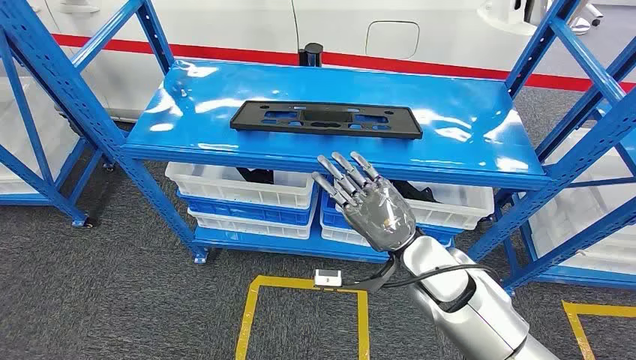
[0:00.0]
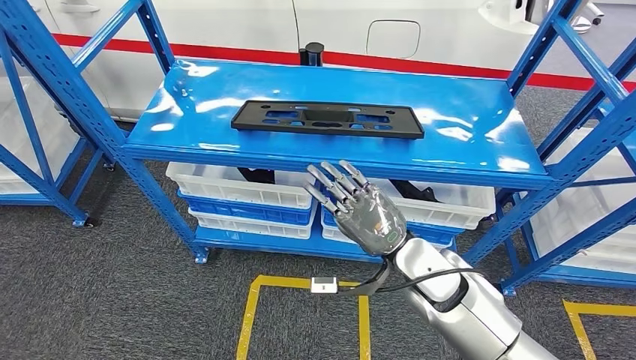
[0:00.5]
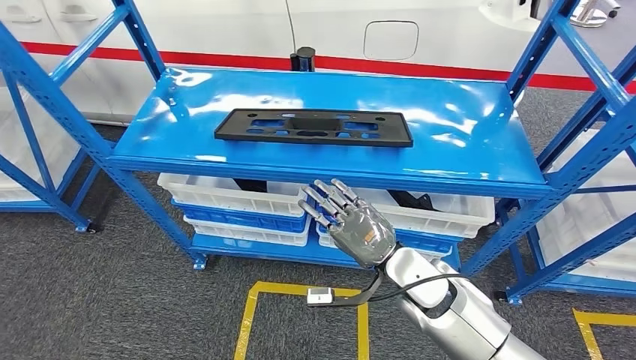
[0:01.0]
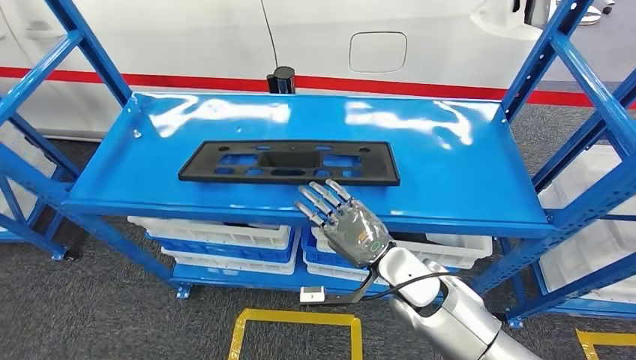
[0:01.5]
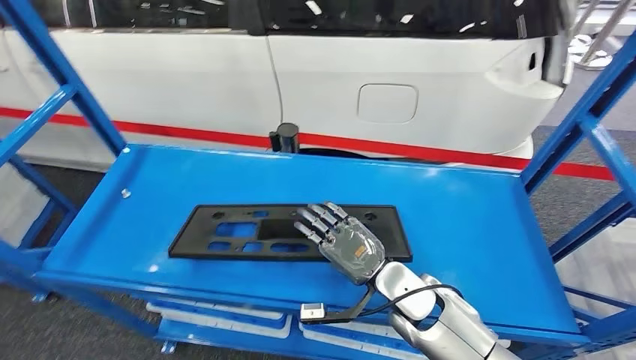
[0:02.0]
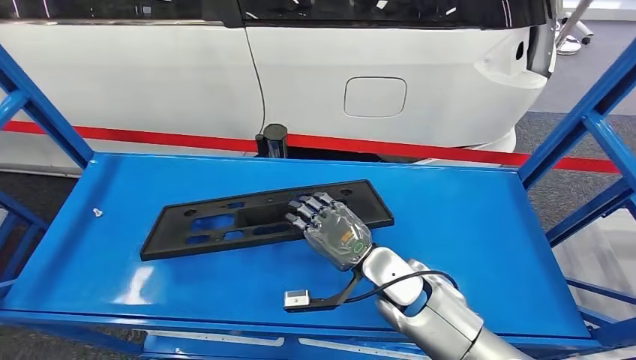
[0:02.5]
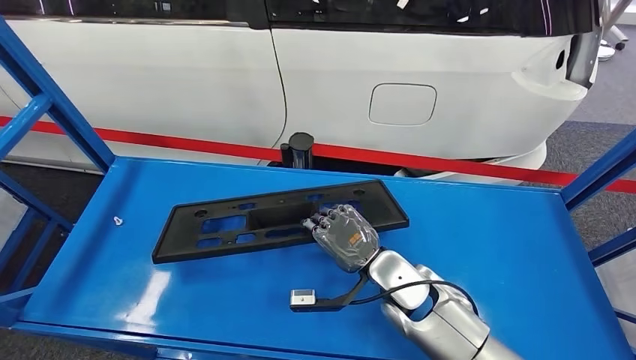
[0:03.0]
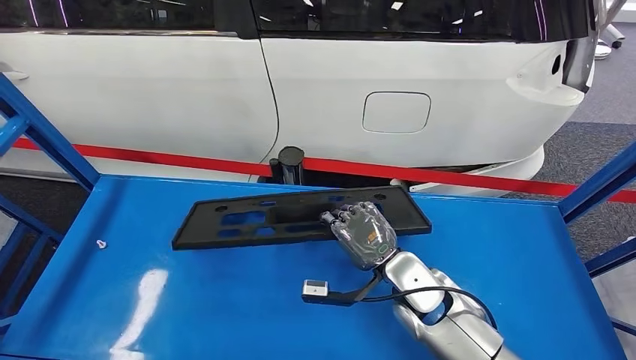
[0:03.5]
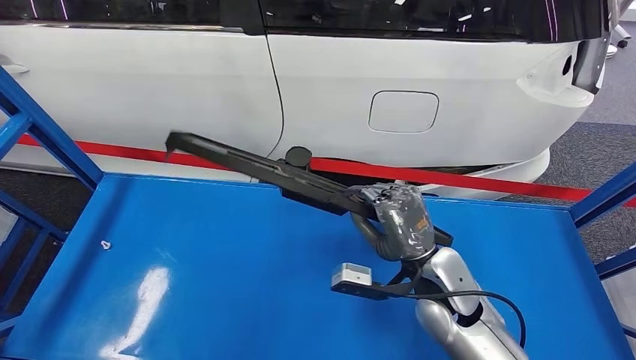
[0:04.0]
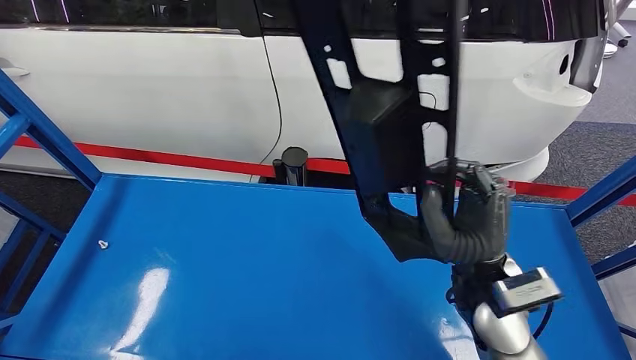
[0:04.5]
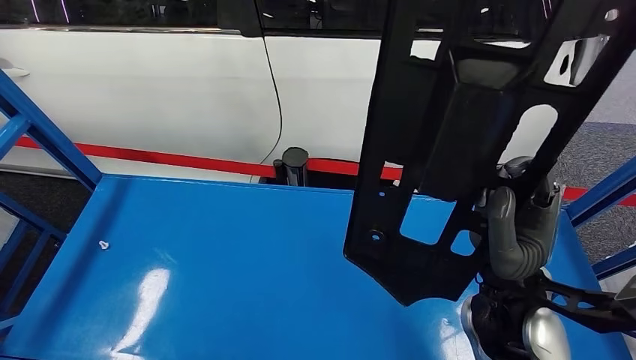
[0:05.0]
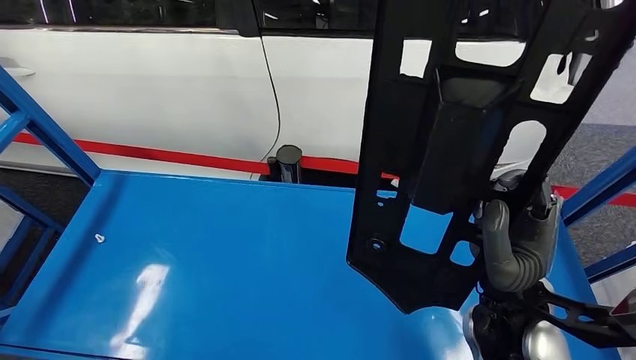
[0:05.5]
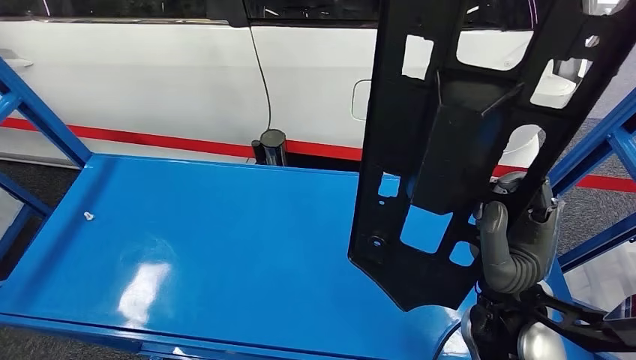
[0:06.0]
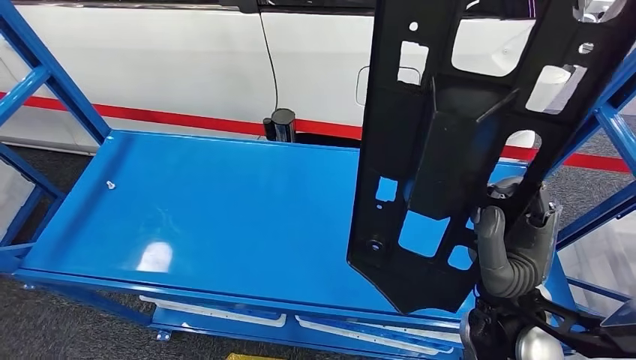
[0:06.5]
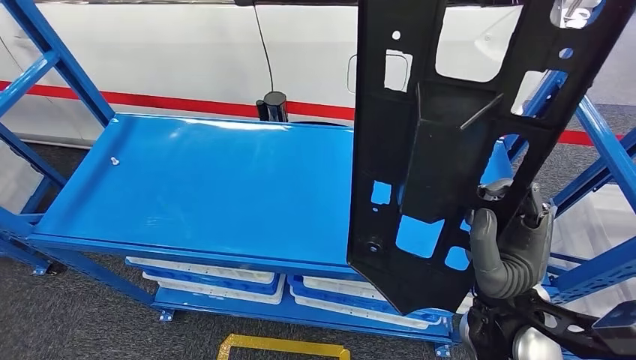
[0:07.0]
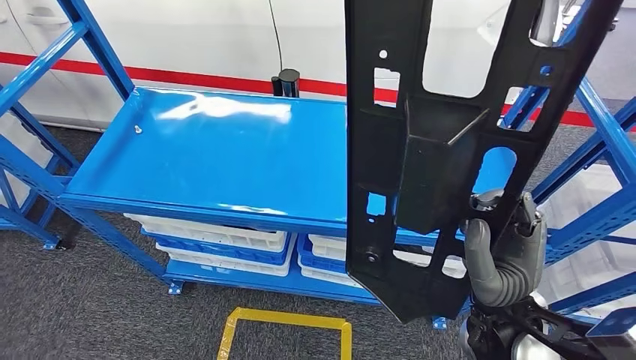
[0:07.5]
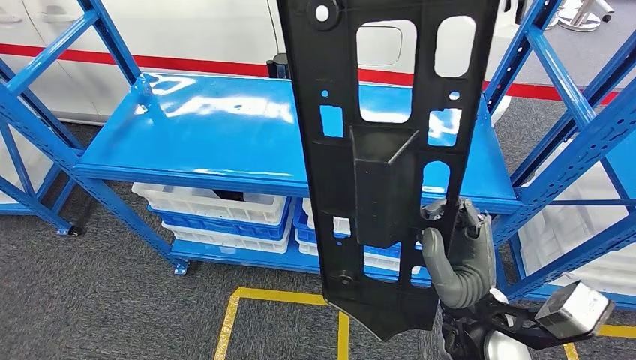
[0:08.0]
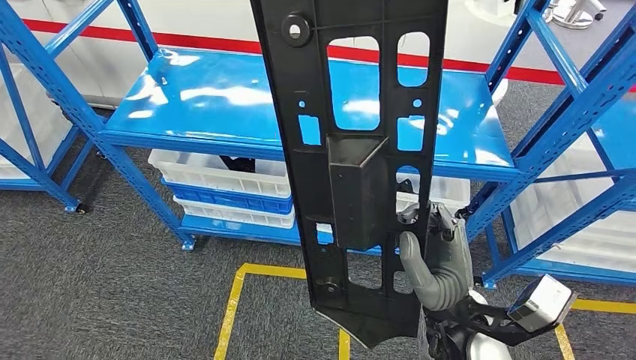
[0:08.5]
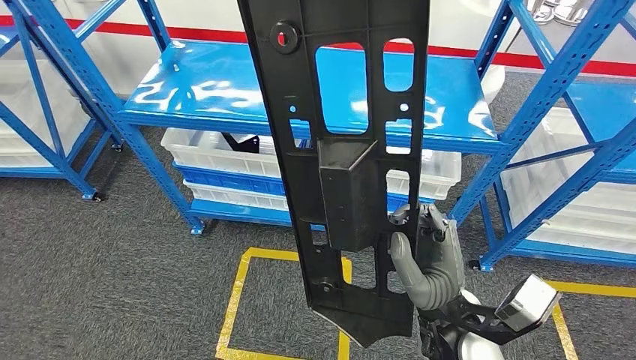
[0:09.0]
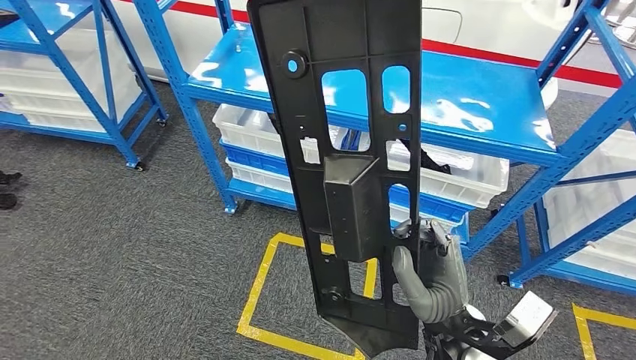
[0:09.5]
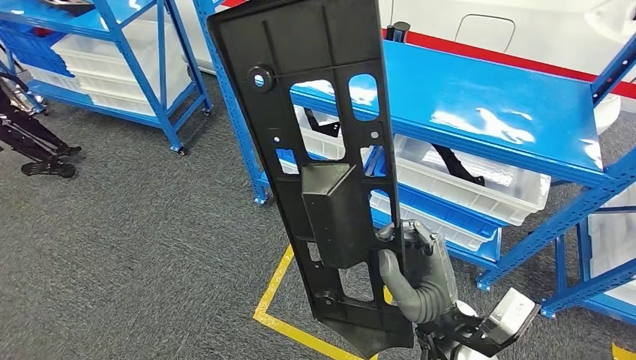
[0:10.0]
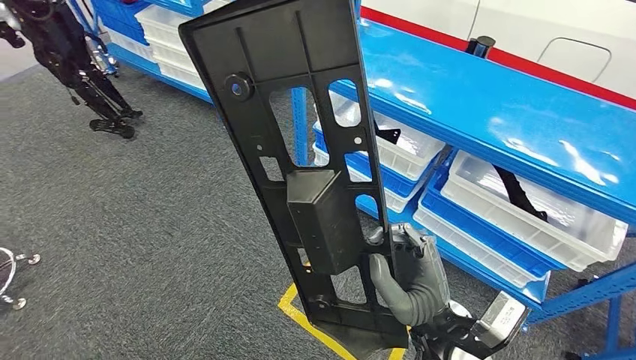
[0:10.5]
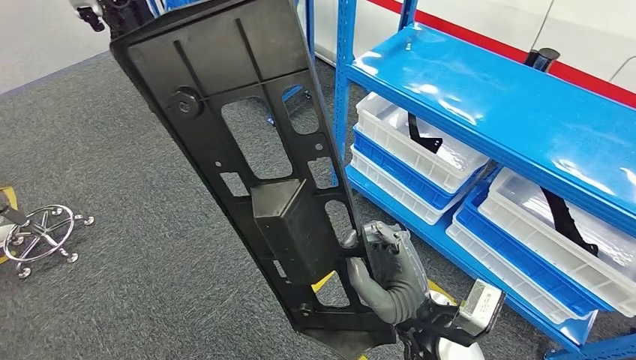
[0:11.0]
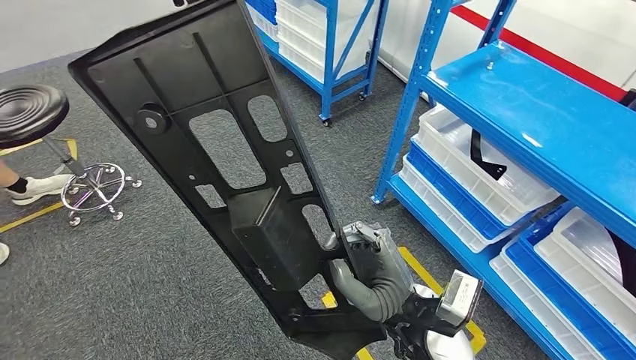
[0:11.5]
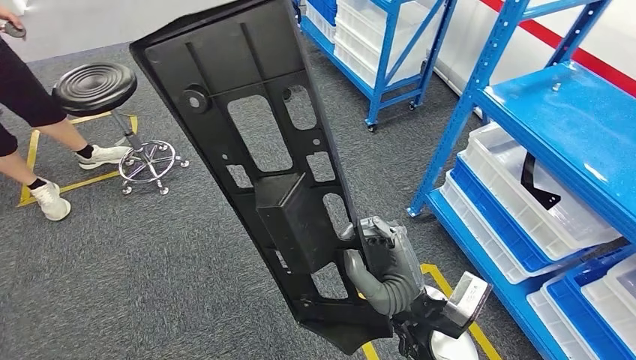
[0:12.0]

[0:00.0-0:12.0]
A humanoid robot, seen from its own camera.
Step, 0:00.0 to 0:08.5: Pick up the large material from the shelf.

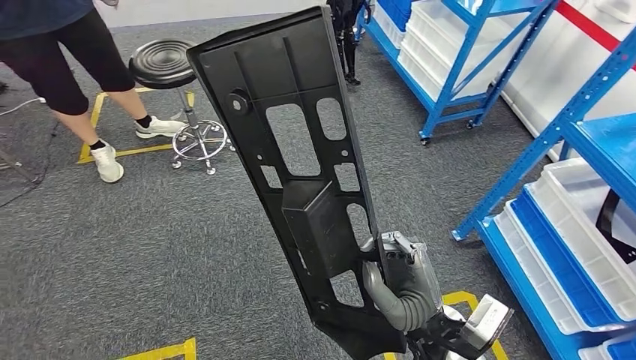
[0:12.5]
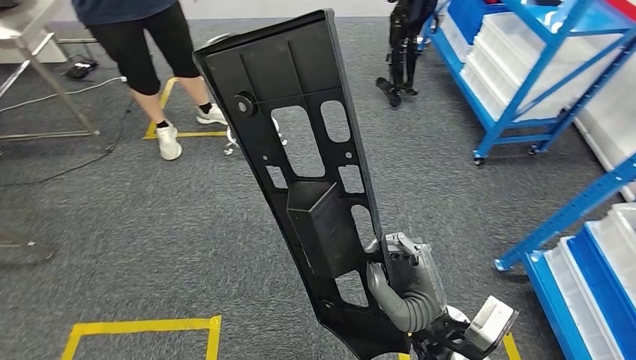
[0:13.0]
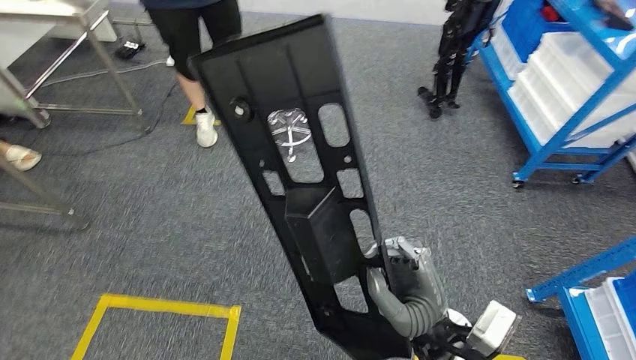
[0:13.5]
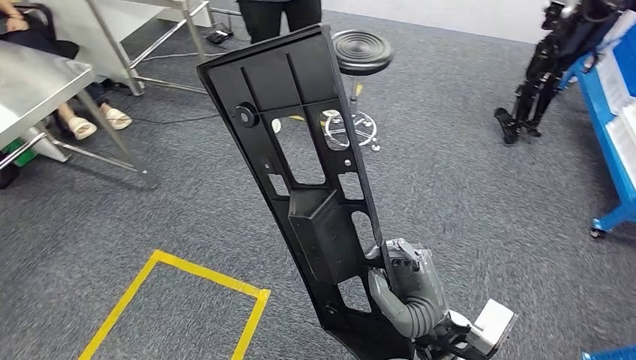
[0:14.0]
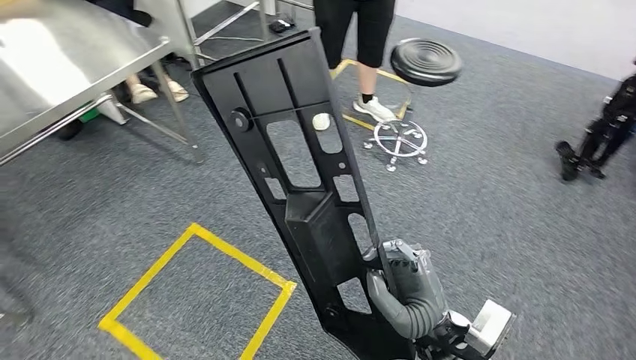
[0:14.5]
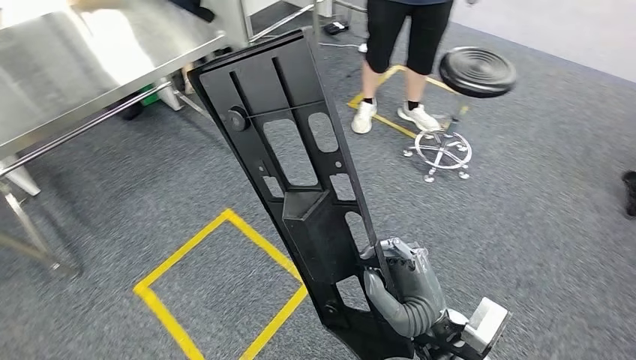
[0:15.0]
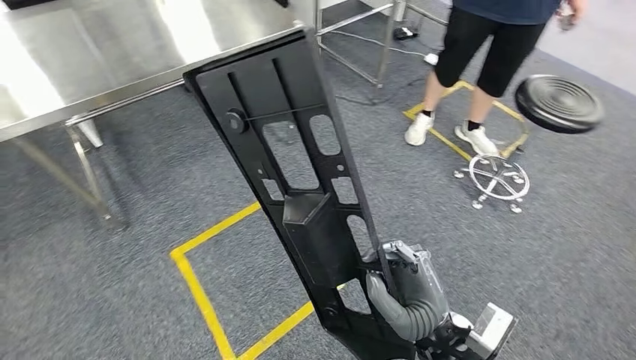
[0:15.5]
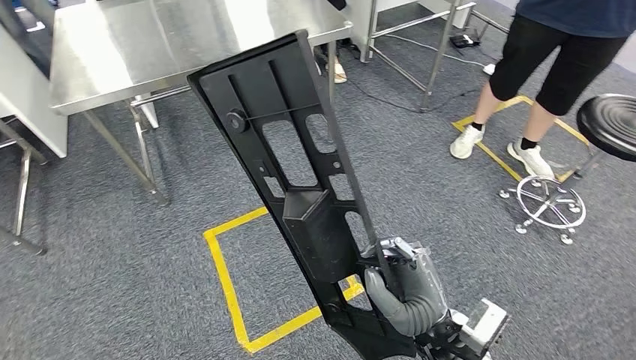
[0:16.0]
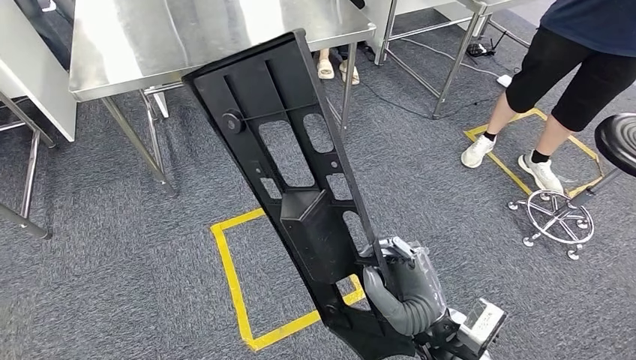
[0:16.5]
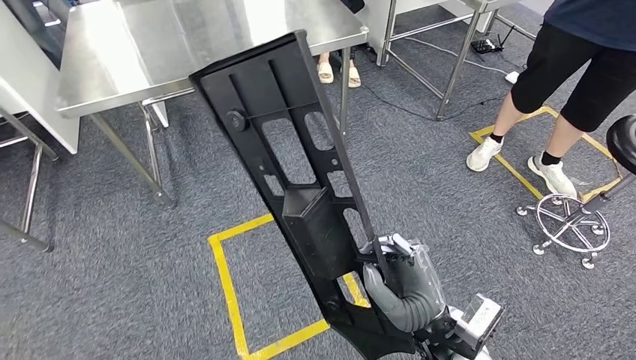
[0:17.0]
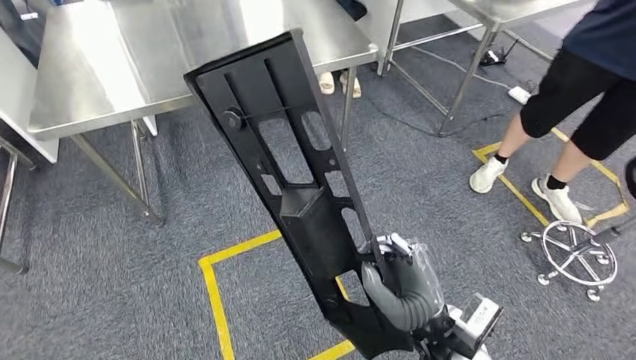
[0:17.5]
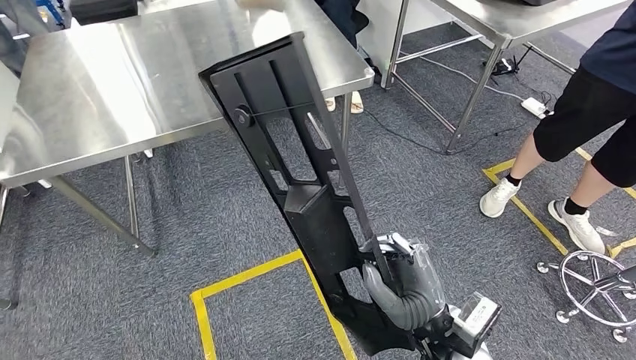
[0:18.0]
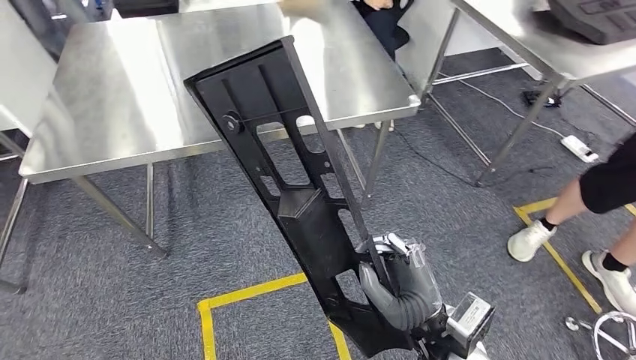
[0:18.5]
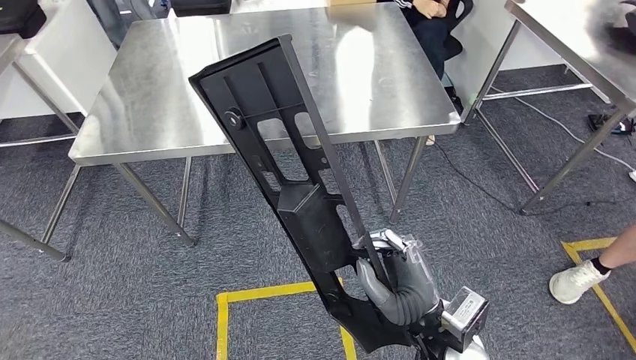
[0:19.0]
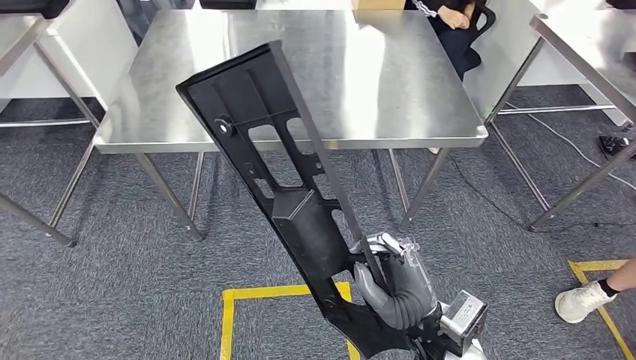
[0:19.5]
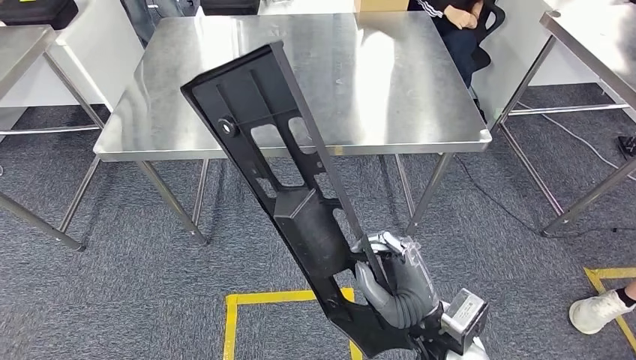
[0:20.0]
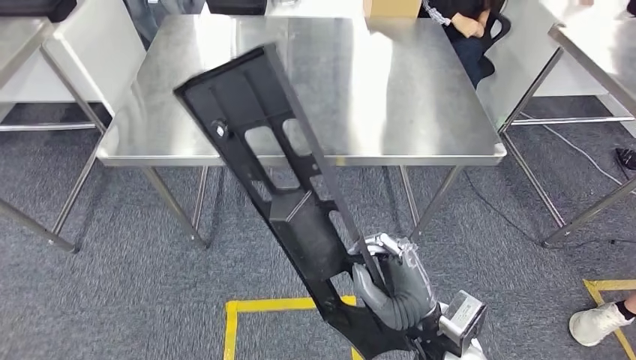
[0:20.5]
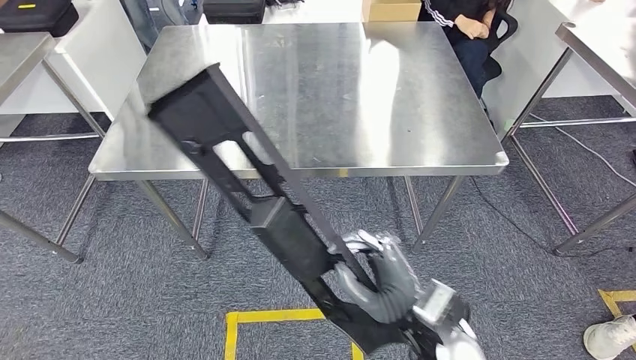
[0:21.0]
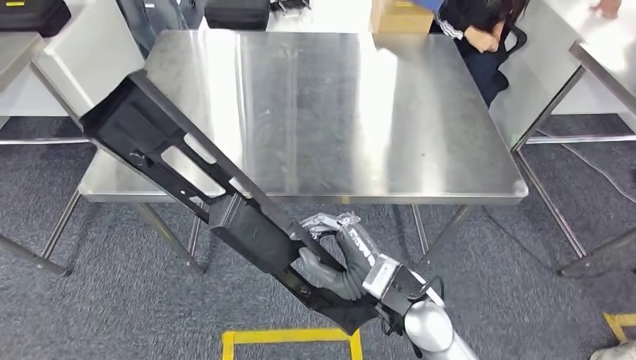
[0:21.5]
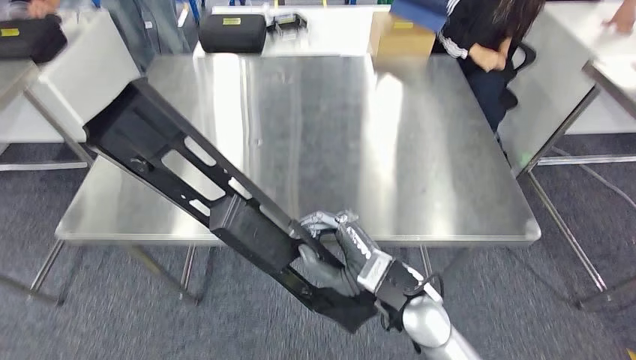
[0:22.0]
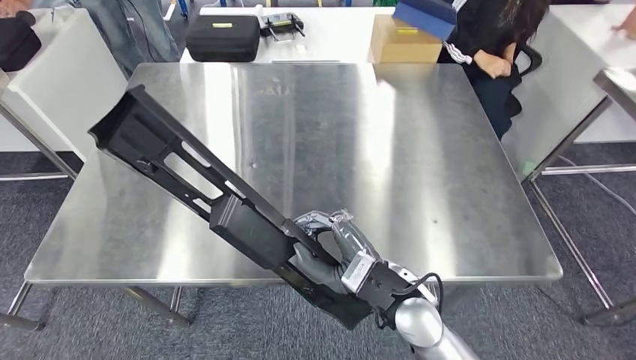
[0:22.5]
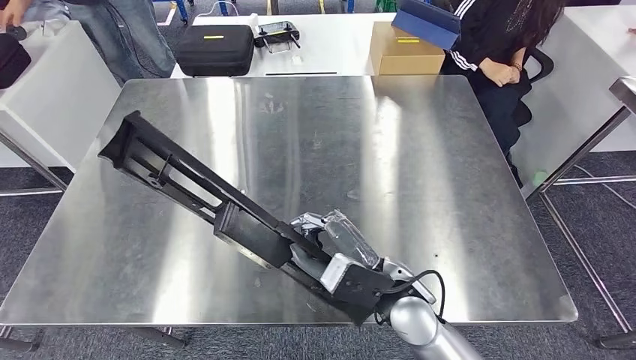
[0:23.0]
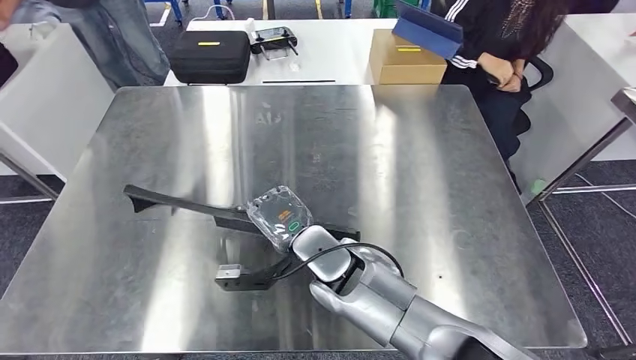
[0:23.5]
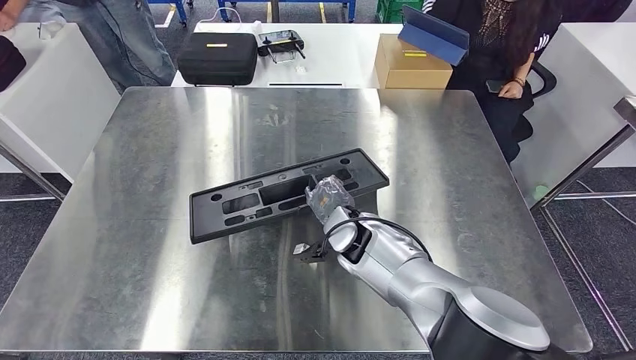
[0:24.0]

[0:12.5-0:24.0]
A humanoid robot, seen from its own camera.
Step, 0:12.5 to 0:21.0: Move the large material to the workbench.
